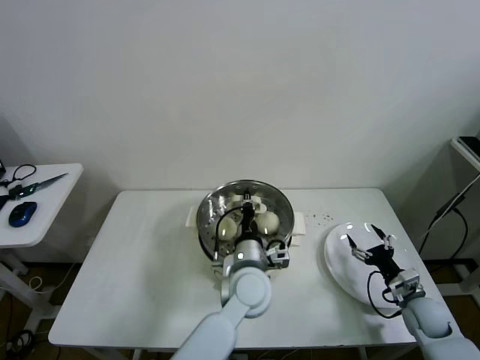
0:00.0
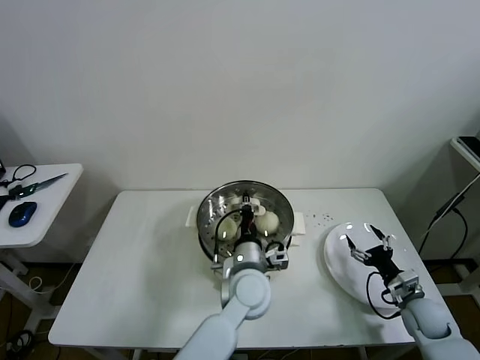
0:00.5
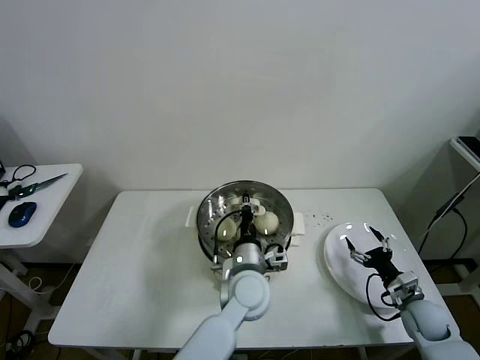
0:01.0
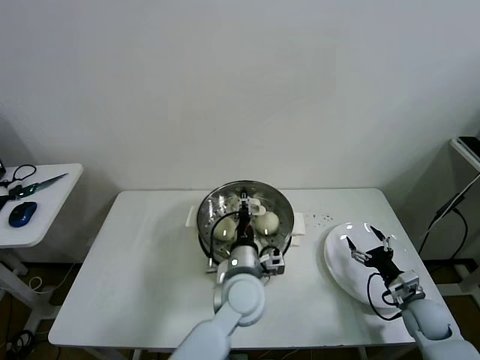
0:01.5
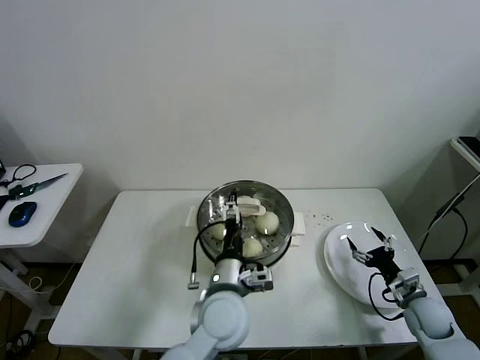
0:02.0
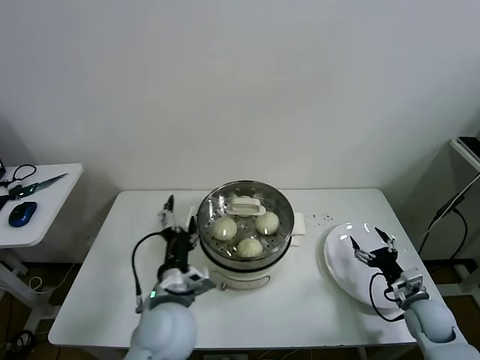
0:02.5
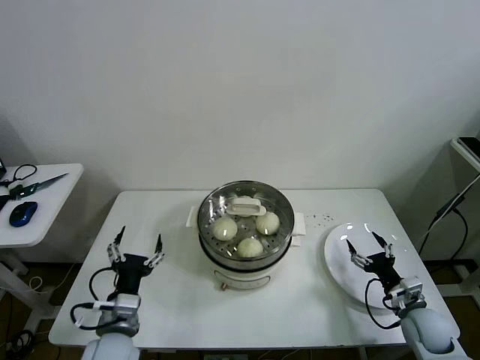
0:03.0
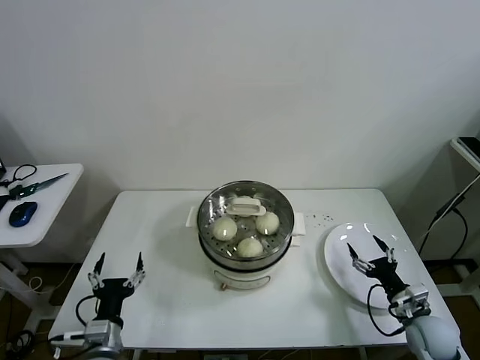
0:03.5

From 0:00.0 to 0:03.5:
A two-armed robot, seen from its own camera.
Task of the whole recording: take steamed baozi put them in steamer then cover it.
From 0:00.0 to 0:02.0: The left gripper moves backward, about 5 cm, and opens up.
From 0:02.0 to 0:03.5: The left gripper heads to the left, covering some 25 cm.

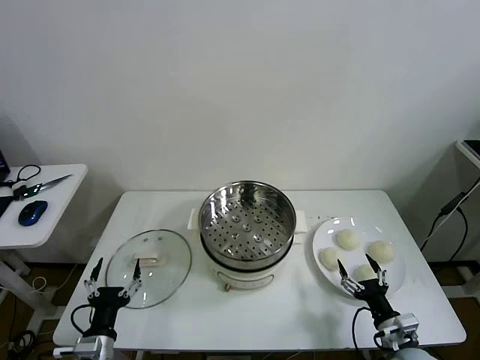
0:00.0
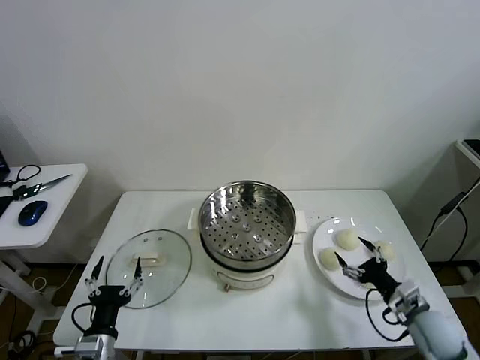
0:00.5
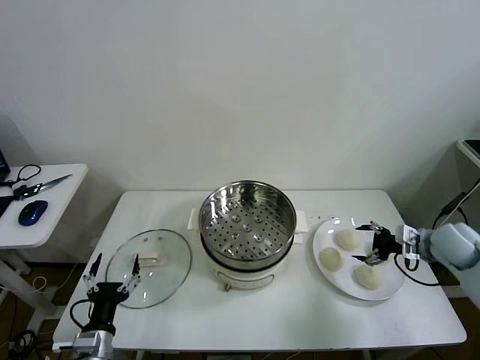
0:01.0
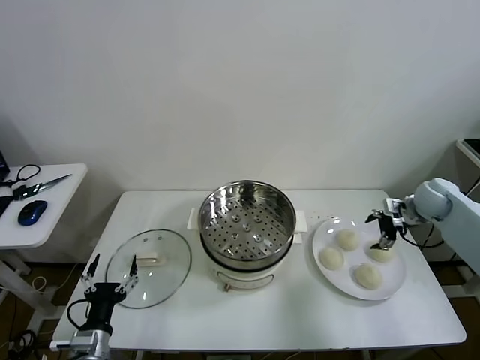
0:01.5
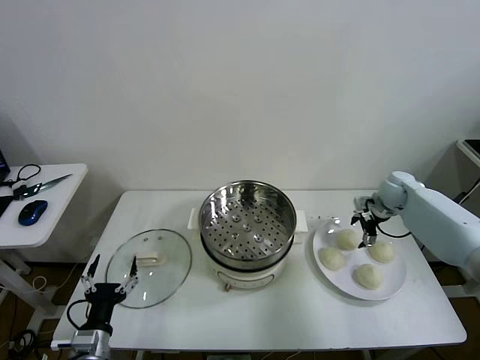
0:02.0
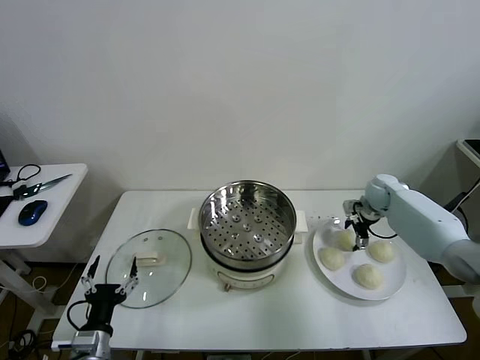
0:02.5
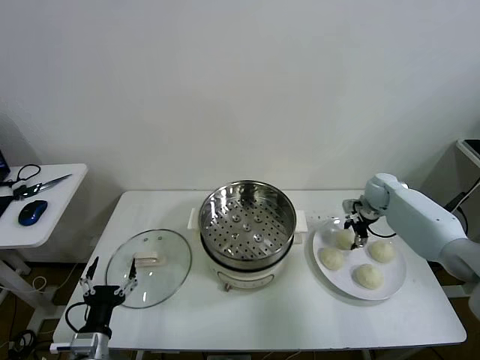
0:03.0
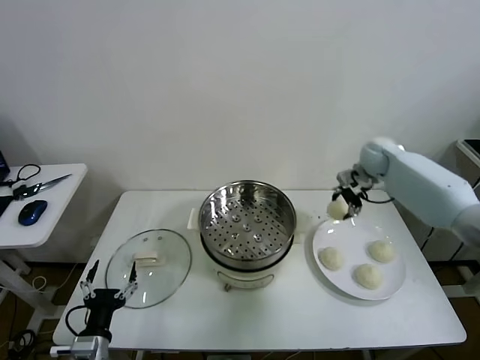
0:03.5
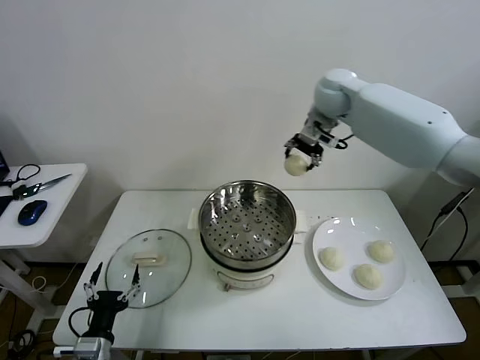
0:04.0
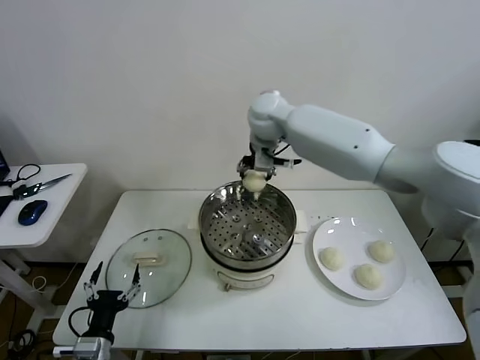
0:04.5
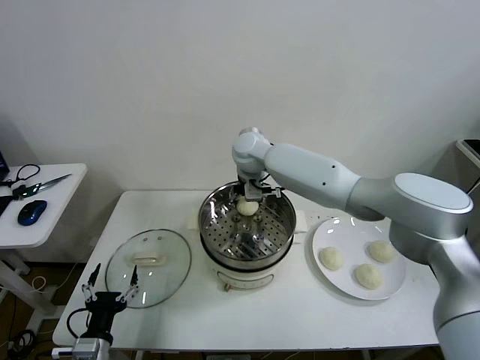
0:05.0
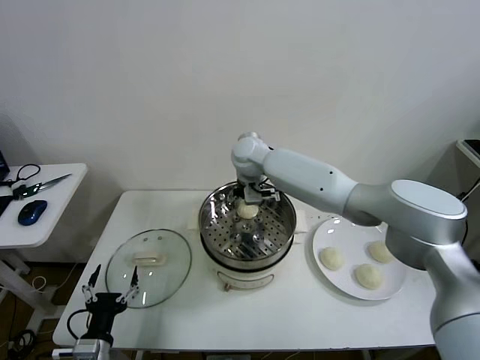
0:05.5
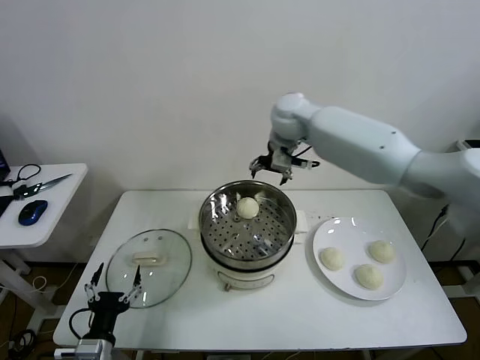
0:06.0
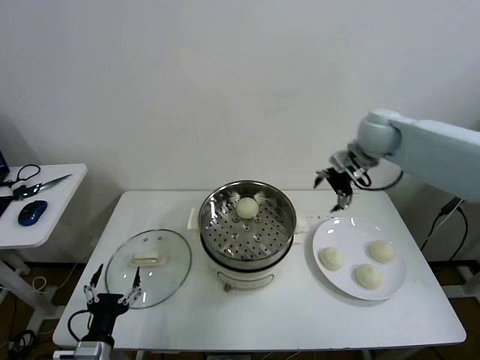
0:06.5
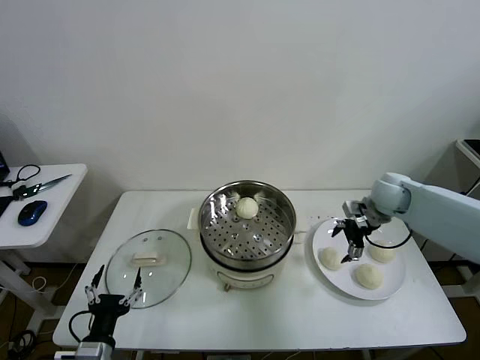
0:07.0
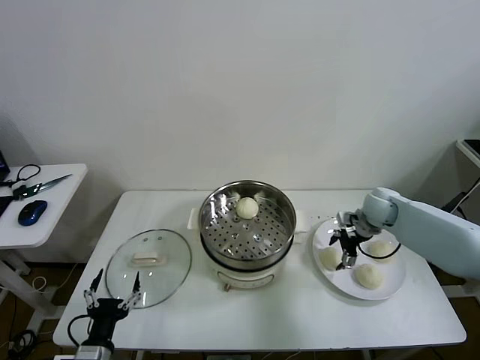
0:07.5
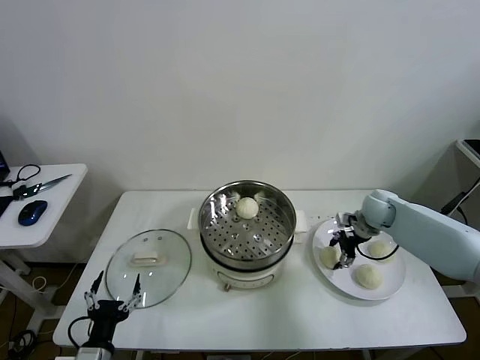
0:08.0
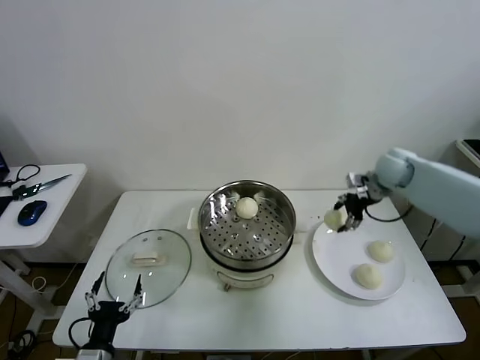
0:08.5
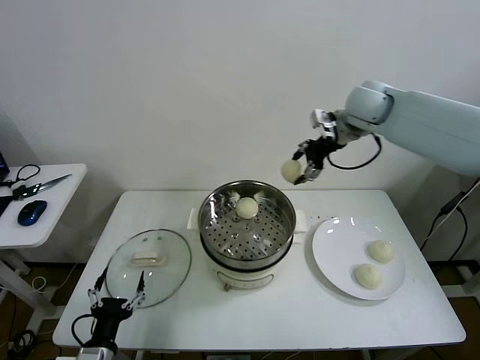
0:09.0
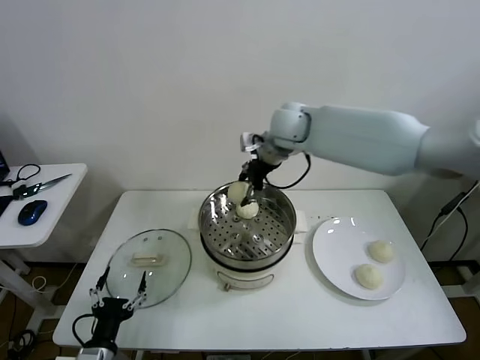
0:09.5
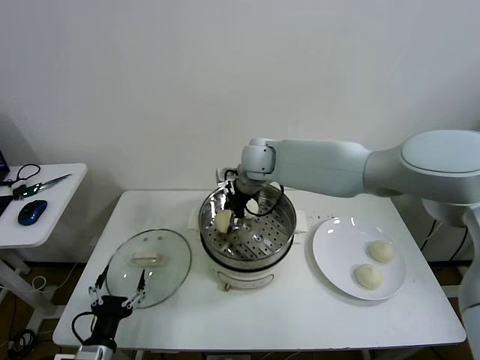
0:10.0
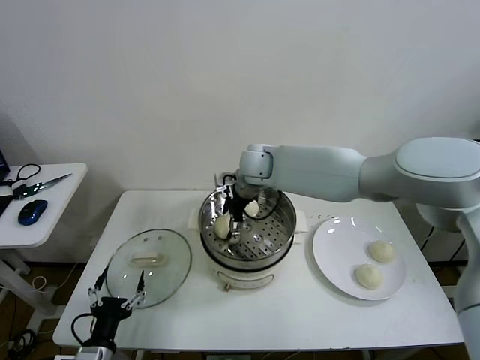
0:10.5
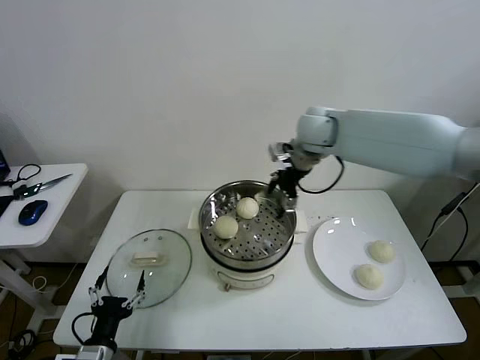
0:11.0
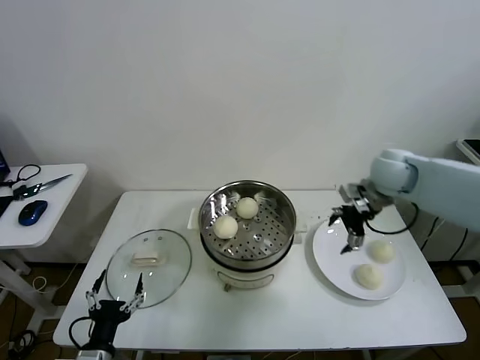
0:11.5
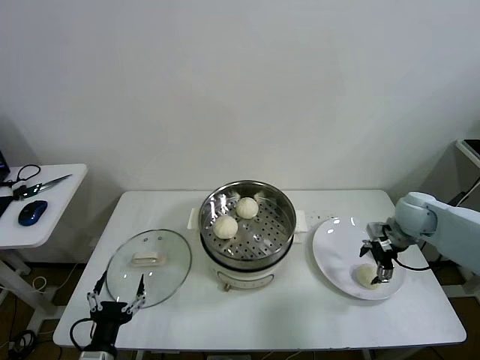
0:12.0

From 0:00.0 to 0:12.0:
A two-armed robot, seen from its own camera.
Task of the whole recording: take steamed baozi put them in steamer then cover it.
Step, from 0:00.0 to 0:02.5: Grasp the baozi in the plate with right gripper.
Step, from 0:03.0 to 0:05.5: Place the baozi on the steamer with right gripper.
Step, from 0:06.0 to 0:08.0: Grasp the baozi in the plate with right gripper.
Step, from 0:08.5 to 0:10.0: Place the baozi on the steamer with right gripper.
From 0:02.0 to 0:04.0: The right gripper moves upward and to the left, some 35 cm, and closes up.
From 0:04.0 to 0:06.0: The right gripper goes downward and returns, about 15 cm each way, and opens.
From 0:06.0 to 0:08.0: The right gripper is displaced downward and to the right by approximately 35 cm, and closes up.
From 0:08.0 to 0:10.0: The right gripper travels to the left and upward by roughly 35 cm.
From 0:10.0 to 0:12.0: The right gripper goes about 35 cm to the right, and opens up.

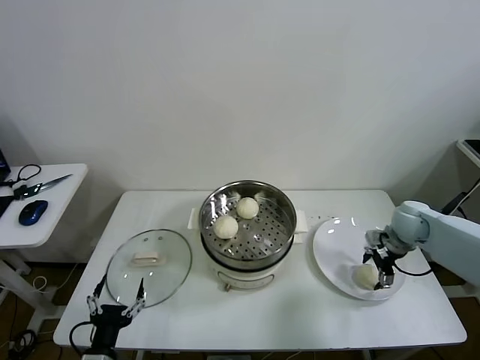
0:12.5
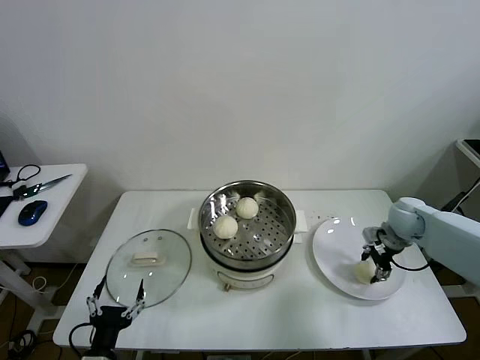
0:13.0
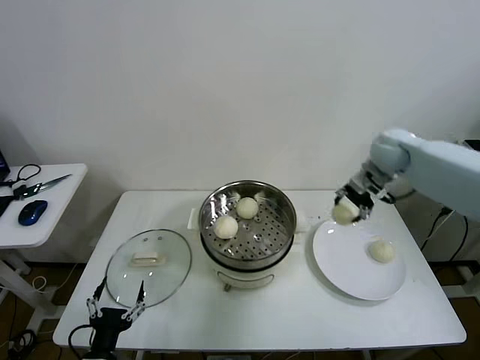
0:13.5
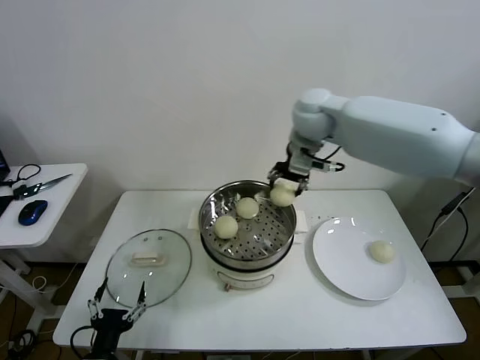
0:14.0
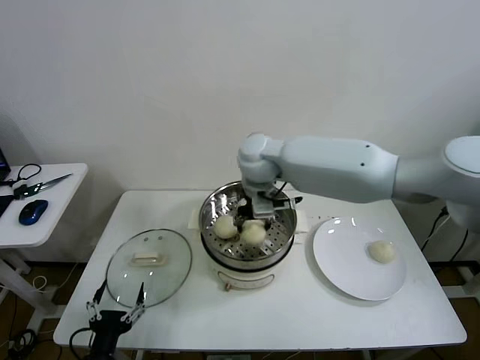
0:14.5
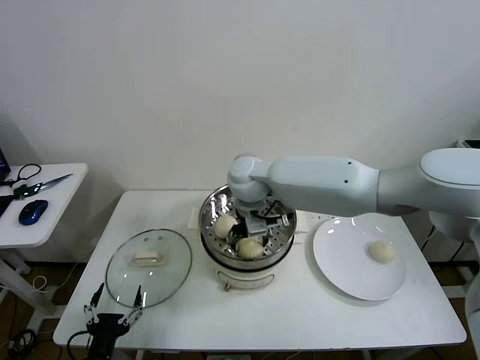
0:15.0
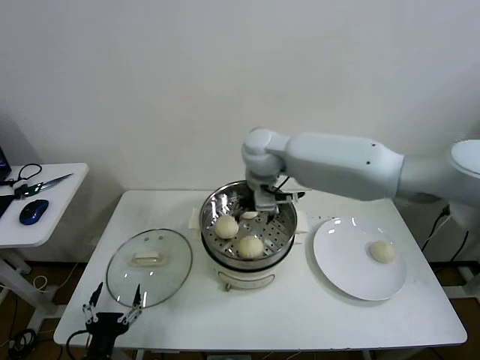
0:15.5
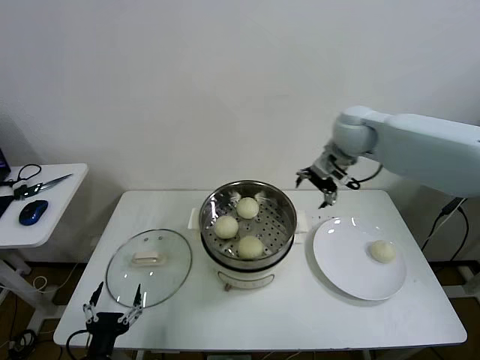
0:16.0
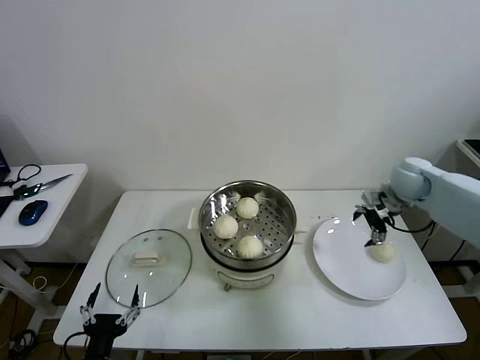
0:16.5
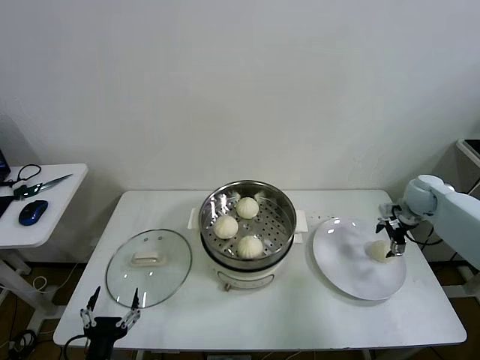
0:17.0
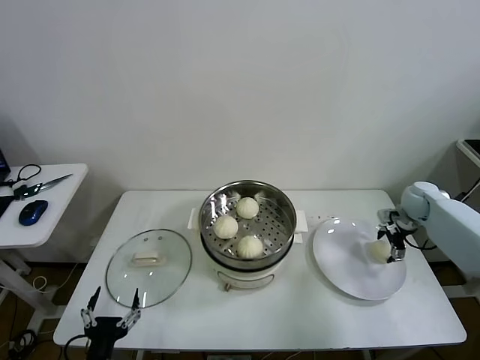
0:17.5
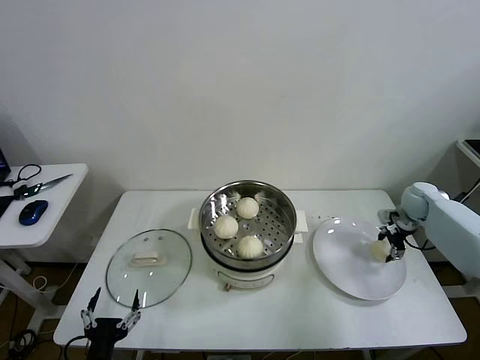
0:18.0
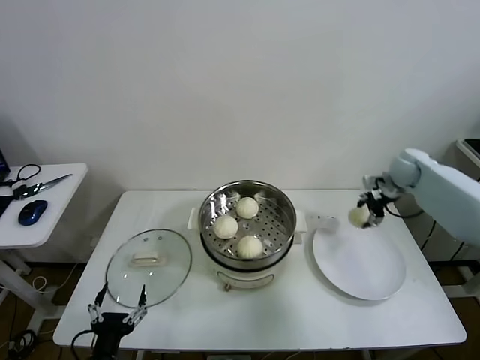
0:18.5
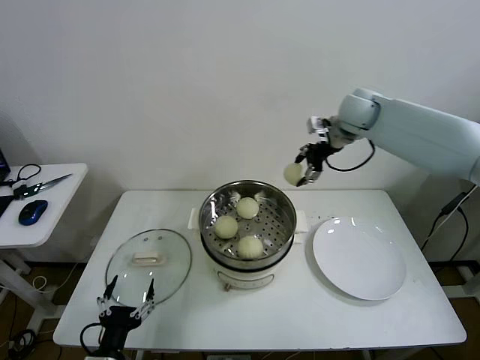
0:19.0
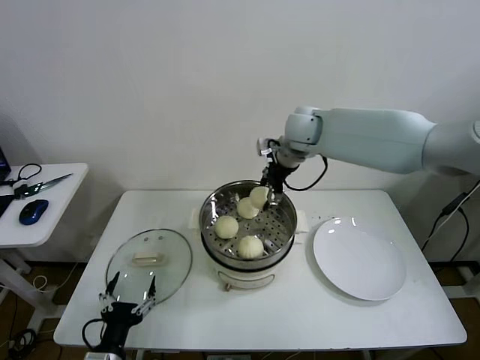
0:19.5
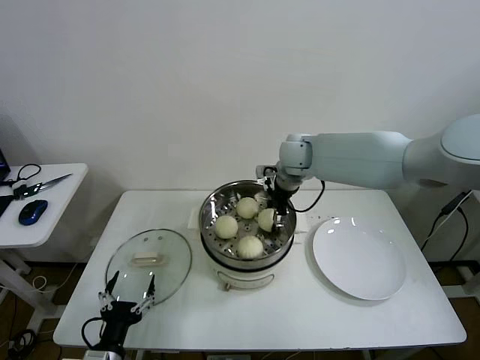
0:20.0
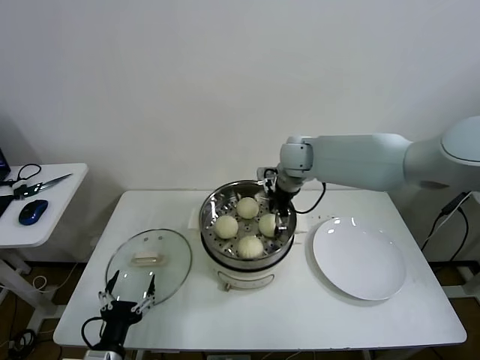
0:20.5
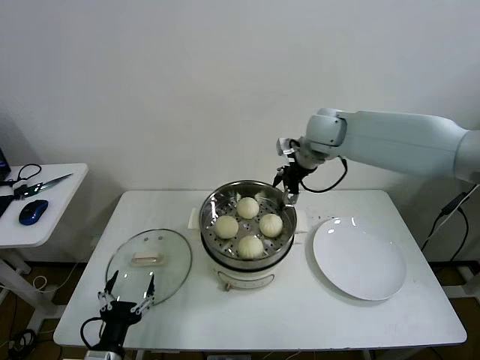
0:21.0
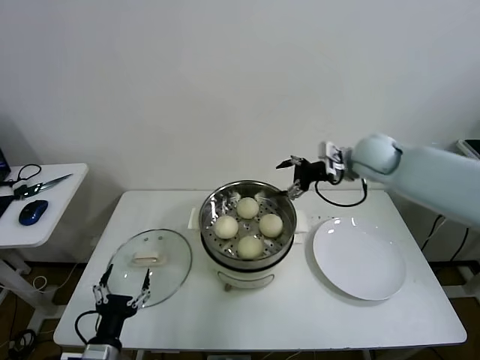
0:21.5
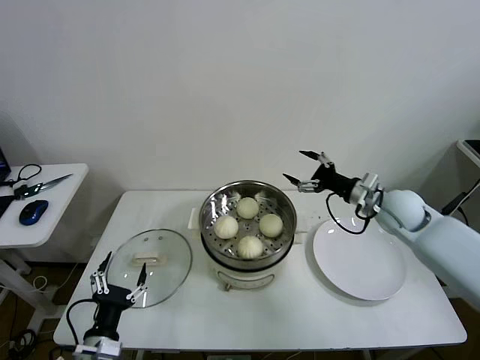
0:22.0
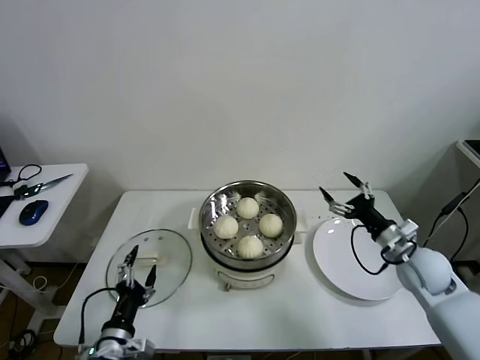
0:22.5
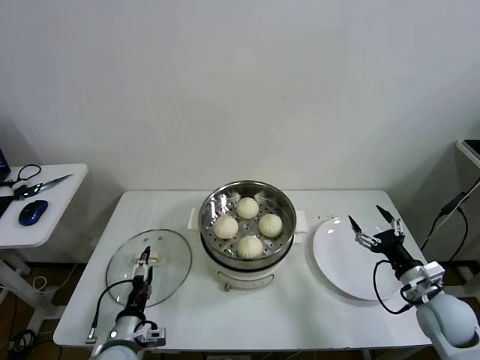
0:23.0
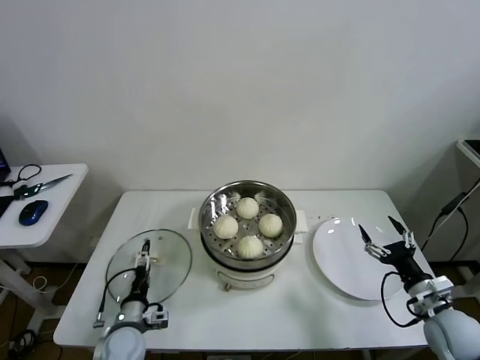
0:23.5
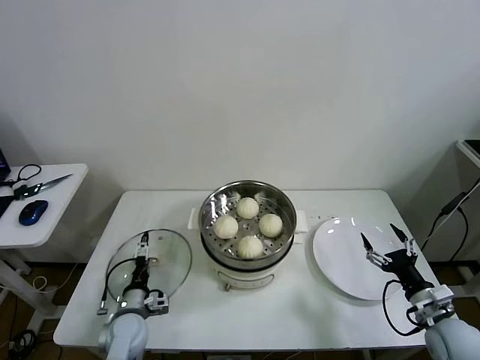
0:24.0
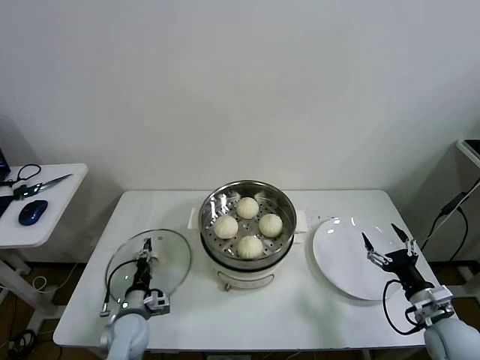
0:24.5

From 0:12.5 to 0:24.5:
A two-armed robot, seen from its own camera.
Task of the whole recording: take steamed baozi put them in steamer then cover it.
Step, from 0:13.5 to 0:15.0: Place the baozi on the steamer with right gripper.
Step, from 0:15.5 to 0:18.0: Grasp the baozi in the plate with right gripper.
Step, from 0:18.5 to 0:20.5: Place the baozi on the steamer with right gripper.
From 0:12.5 to 0:14.5: The right gripper travels to the left and upward by roughly 40 cm, and closes its fingers.
From 0:14.5 to 0:16.5: The right gripper moves to the right, roughly 35 cm, and opens.
From 0:16.5 to 0:18.5: The right gripper travels forward by about 5 cm, travels downward and back again, roughly 10 cm each way, and closes its fingers.
From 0:18.5 to 0:20.5: The right gripper heads to the left, covering roughly 30 cm, and opens up.
From 0:20.5 to 0:22.5: The right gripper moves to the right, backward and downward, roughly 35 cm.
From 0:22.5 to 0:24.5: The left gripper goes roughly 15 cm forward and downward, and closes its fingers, while the right gripper travels backward and downward by about 15 cm.
